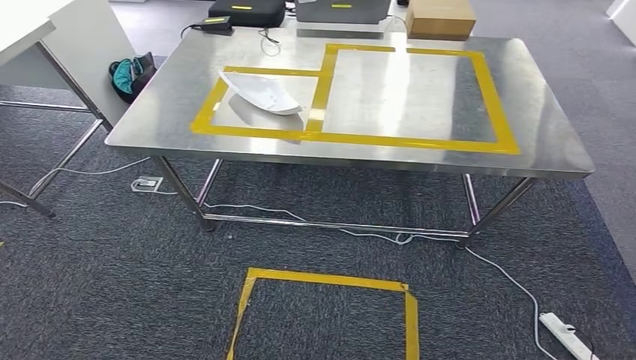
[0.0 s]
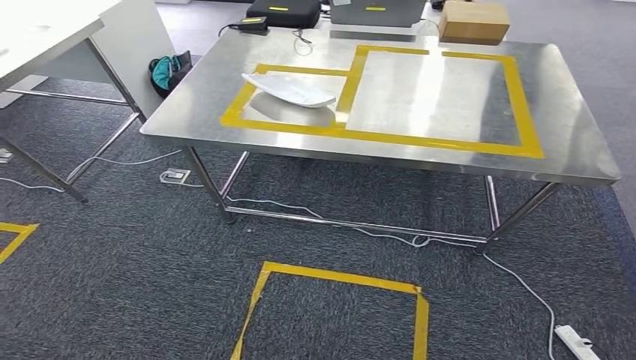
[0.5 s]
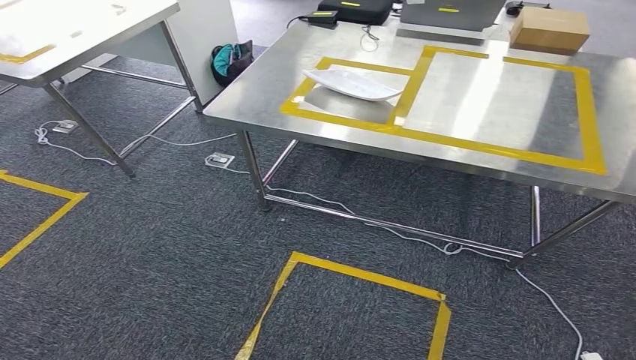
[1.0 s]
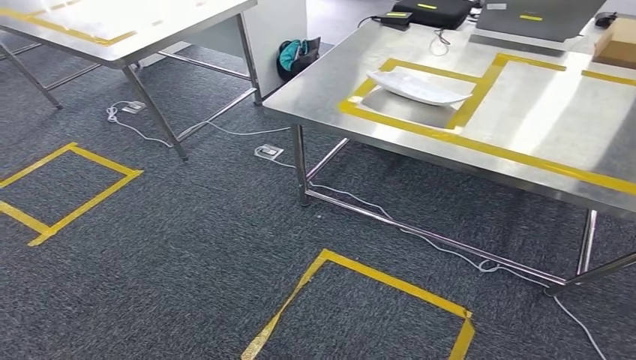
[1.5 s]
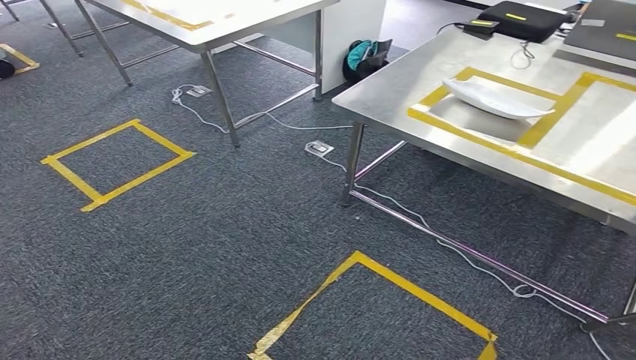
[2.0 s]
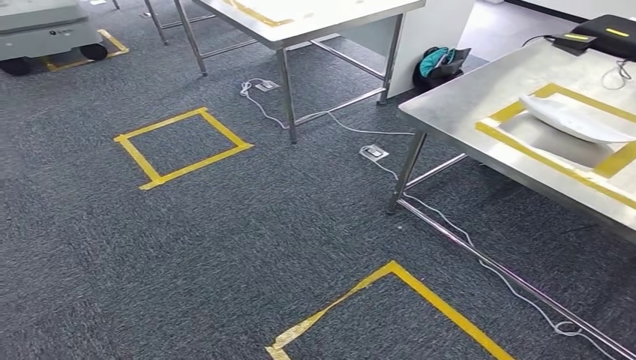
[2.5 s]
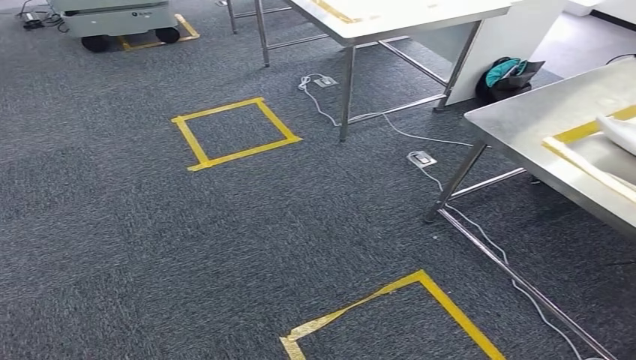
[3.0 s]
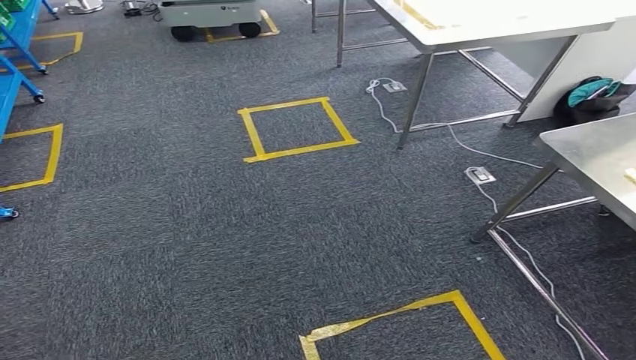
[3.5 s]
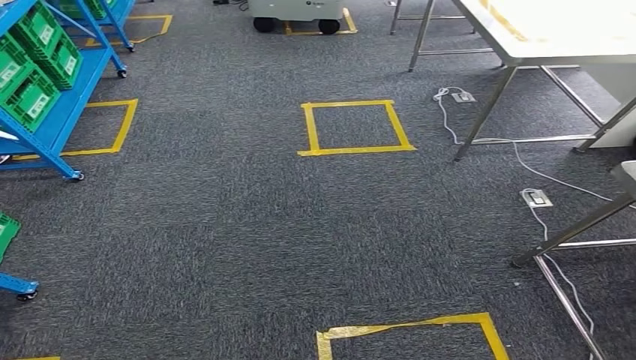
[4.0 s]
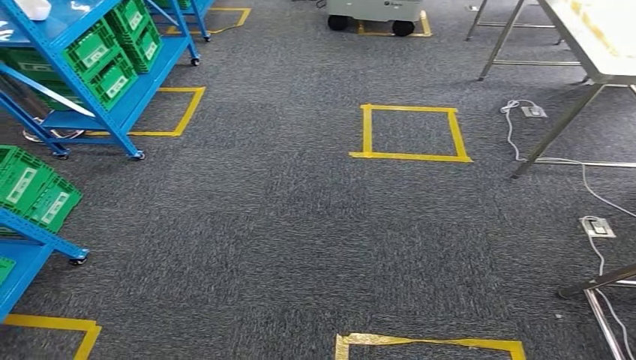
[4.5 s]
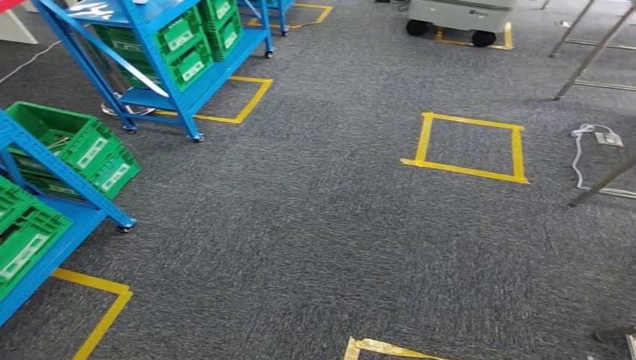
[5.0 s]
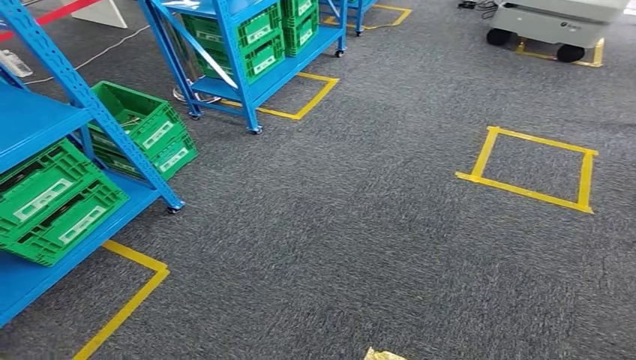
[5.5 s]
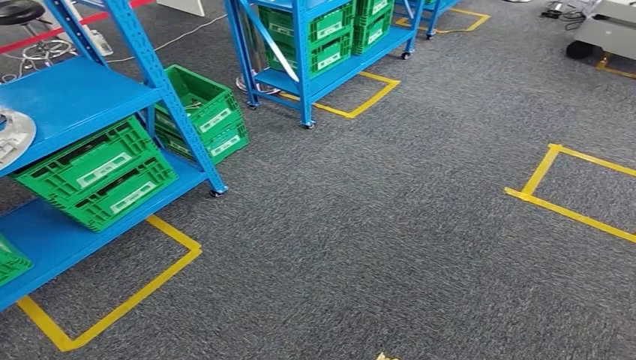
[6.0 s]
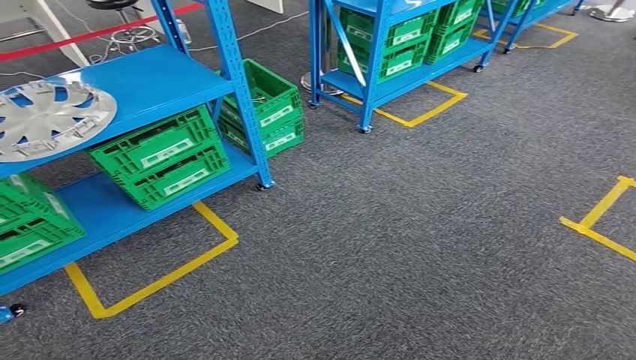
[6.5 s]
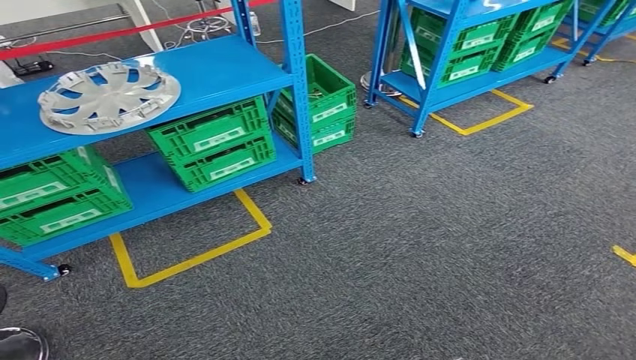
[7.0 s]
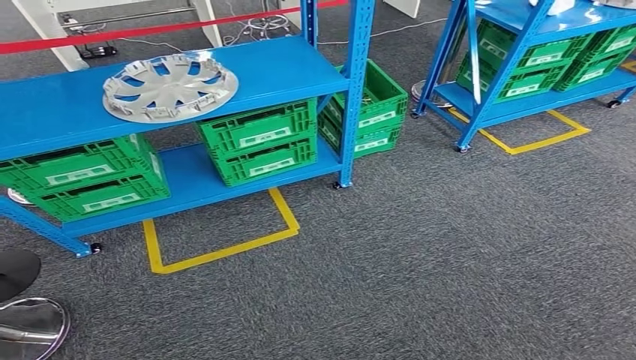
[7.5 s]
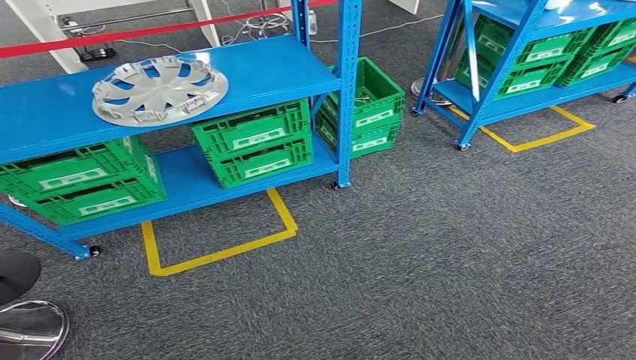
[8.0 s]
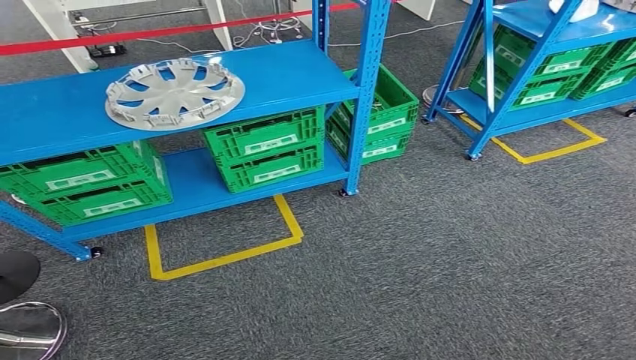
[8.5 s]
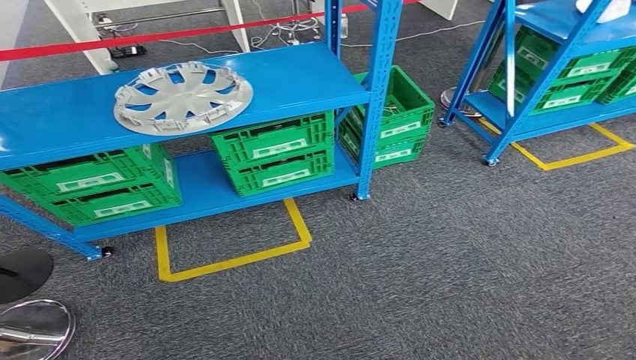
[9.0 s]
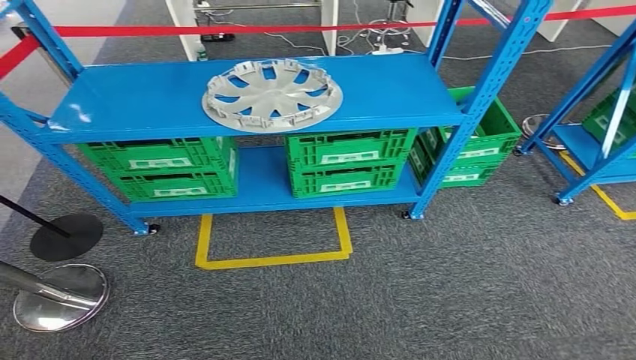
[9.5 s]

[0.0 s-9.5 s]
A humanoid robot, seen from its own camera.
Step, 0.0 to 9.5 s: Move to the initial position at the workbench.
